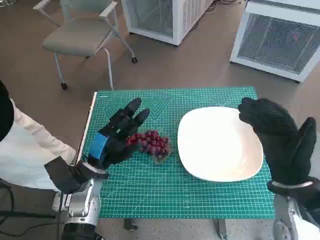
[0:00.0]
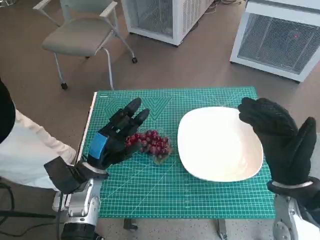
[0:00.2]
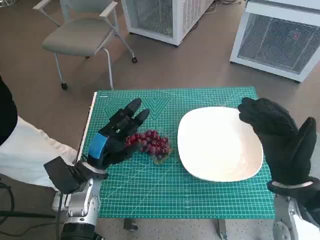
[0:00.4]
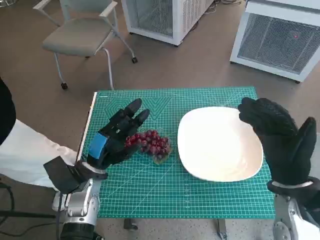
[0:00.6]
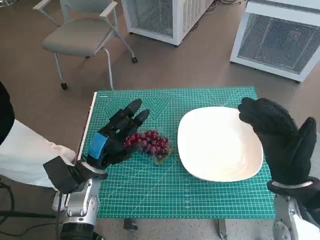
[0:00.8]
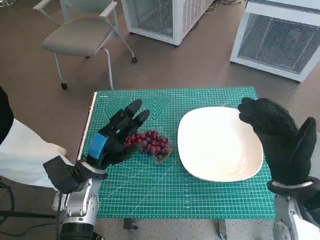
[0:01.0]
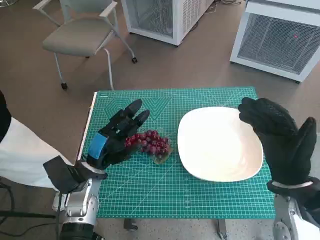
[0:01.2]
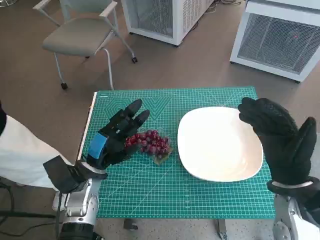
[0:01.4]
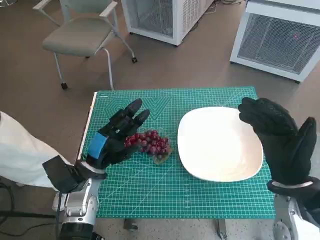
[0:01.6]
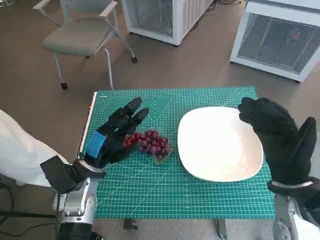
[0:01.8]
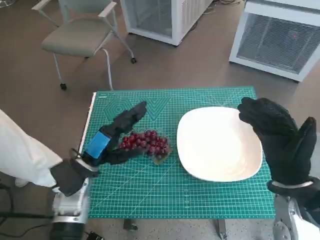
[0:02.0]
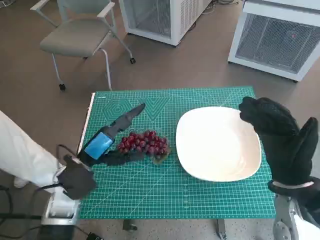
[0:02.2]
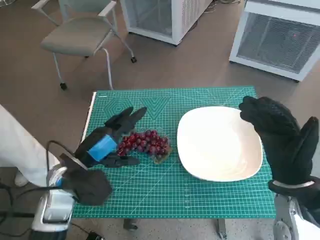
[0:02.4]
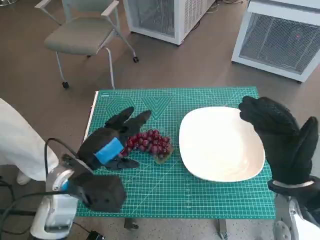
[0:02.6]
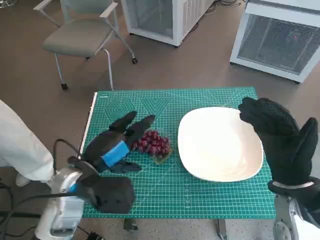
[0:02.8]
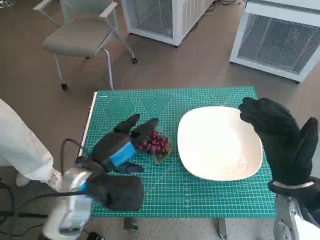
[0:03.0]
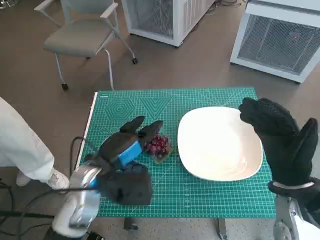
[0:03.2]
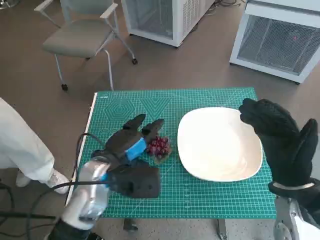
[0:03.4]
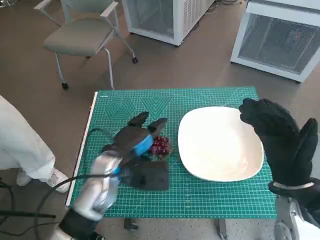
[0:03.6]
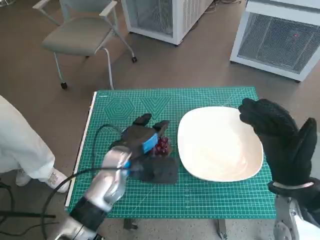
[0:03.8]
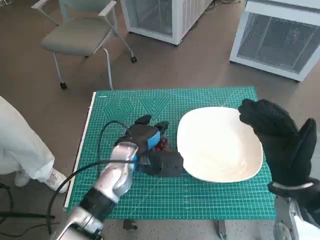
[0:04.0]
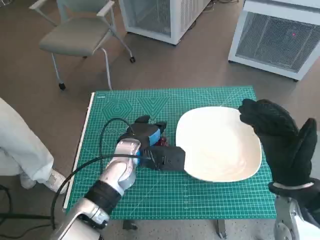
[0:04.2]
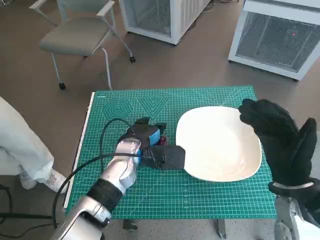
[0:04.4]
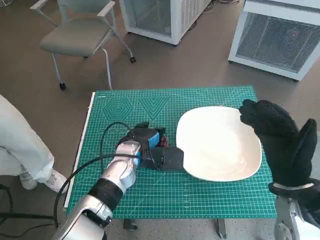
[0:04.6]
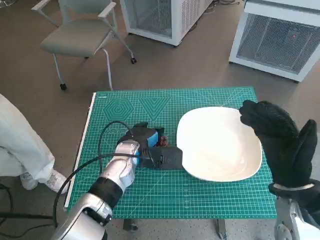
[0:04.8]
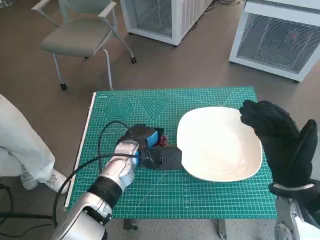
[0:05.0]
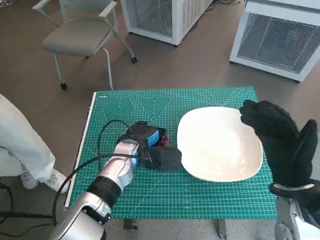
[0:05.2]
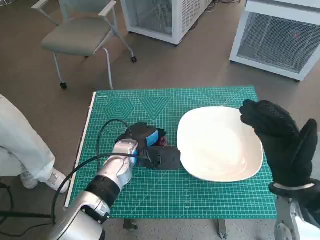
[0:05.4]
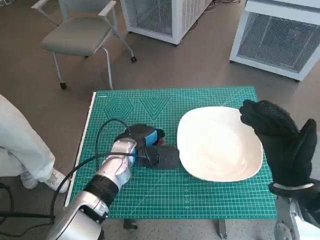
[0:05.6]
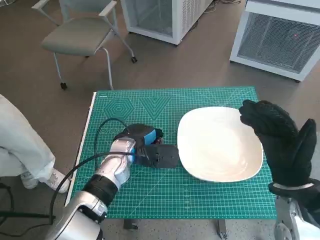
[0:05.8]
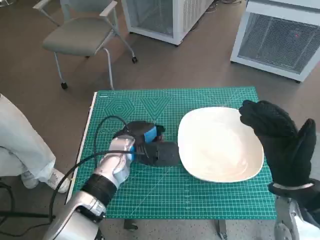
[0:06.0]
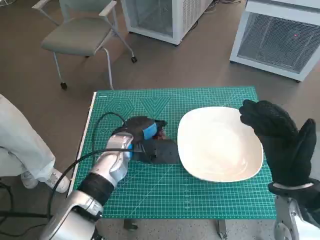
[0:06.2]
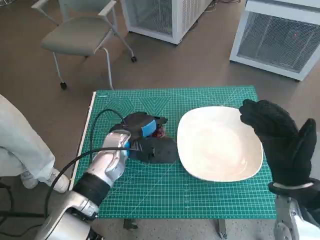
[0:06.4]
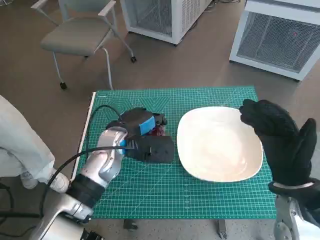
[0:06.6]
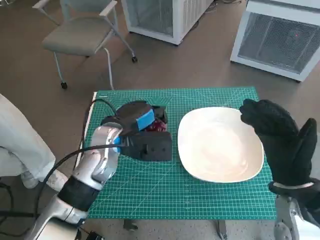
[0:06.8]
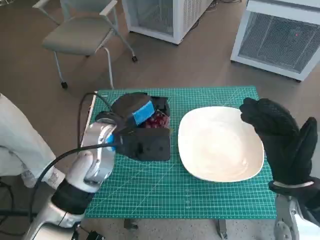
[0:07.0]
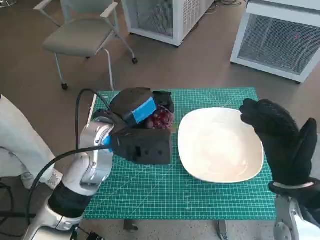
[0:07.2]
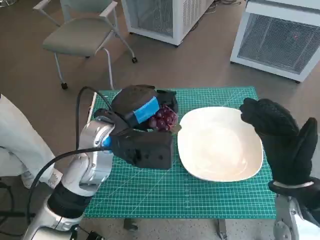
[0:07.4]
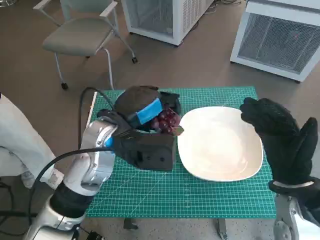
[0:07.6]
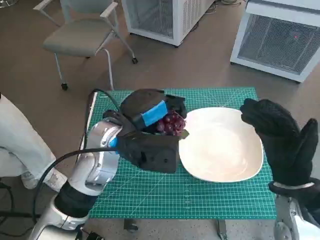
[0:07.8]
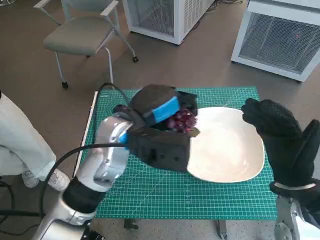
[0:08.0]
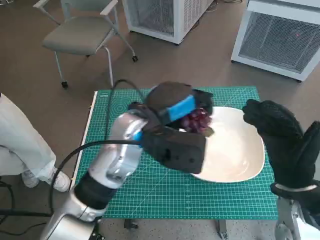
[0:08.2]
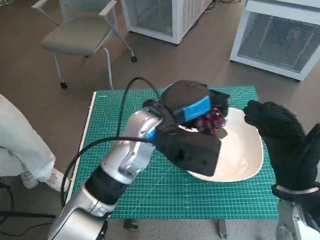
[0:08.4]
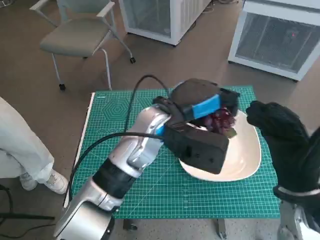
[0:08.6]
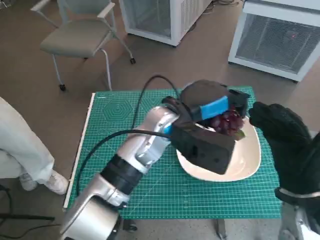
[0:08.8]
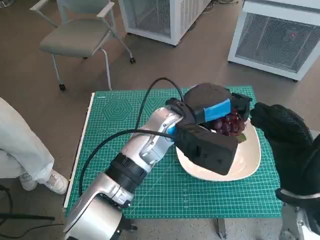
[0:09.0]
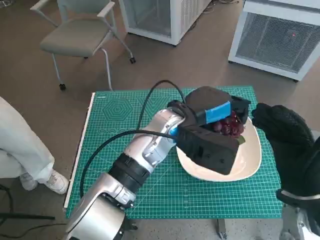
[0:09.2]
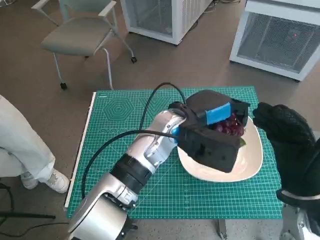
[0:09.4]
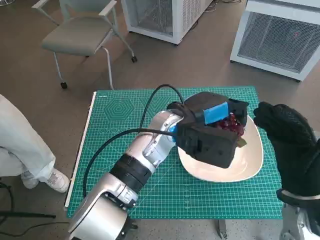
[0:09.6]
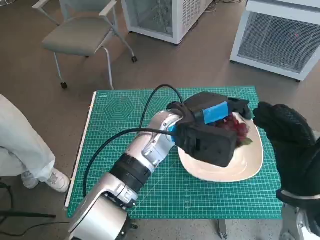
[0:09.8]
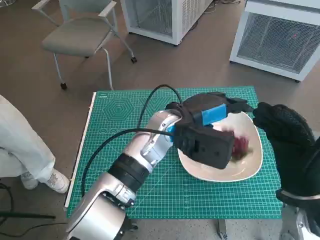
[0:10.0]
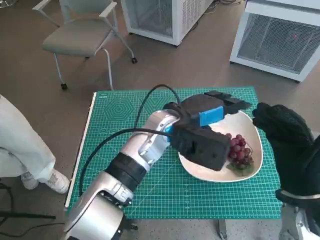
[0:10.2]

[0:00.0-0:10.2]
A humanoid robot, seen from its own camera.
Task of the whole recording: Pick up the grapes and put them on the plate.
Step, 0:00.0 to 0:05.4: Grasp the grapes with left hand.
Step, 0:05.6 to 0:10.2: Place the grapes in the plate with left hand.
0:01.4 to 0:03.0: The left hand is displaced upward by approximately 5 cm.
0:03.0 to 0:04.4: The left hand heads forward and to the right, covering approximately 10 cm.
0:04.4 to 0:05.8: The hands make only small movements.
0:05.8 to 0:07.2: The left hand travels upward by about 10 cm.
0:07.2 to 0:08.8: The left hand goes approximately 10 cm to the right.
0:08.8 to 0:10.2: The hands make only small movements.

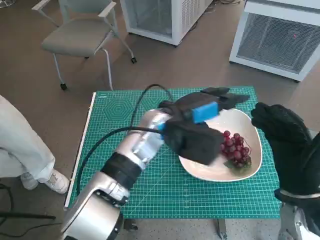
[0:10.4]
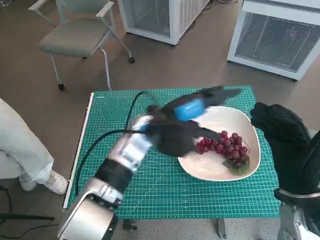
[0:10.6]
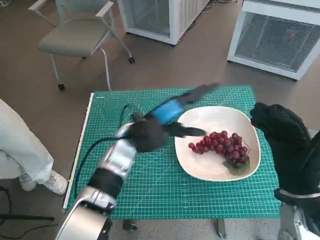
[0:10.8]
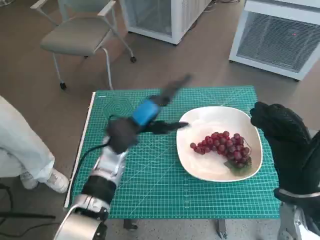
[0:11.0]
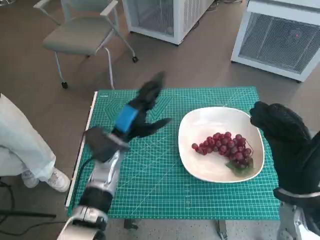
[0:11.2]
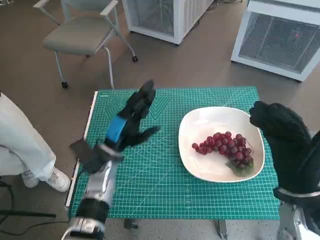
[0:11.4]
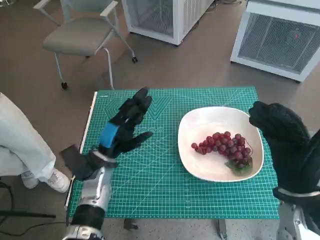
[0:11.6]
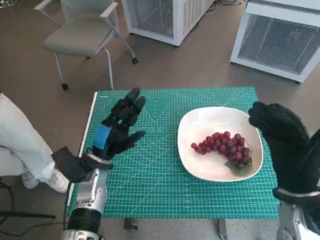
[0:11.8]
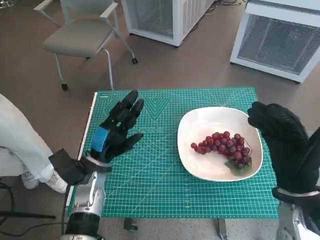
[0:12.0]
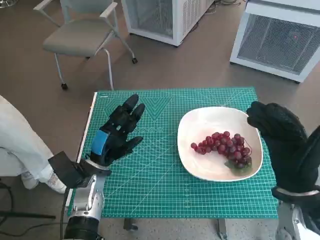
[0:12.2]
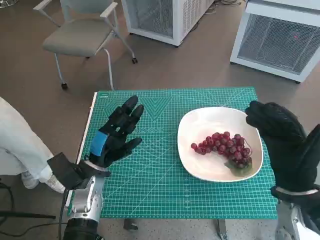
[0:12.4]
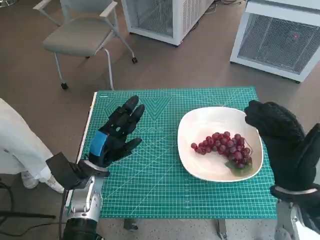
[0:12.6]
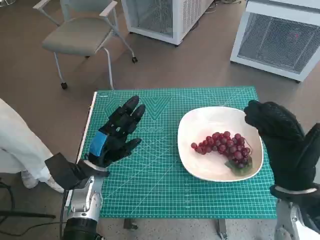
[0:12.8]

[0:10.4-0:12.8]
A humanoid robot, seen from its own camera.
Task of the whole recording: Pick up the grapes and put them on the plate.
0:10.4 to 0:11.6: The left hand goes about 20 cm to the left and downward.
0:11.6 to 0:12.8: The hands move only a little.

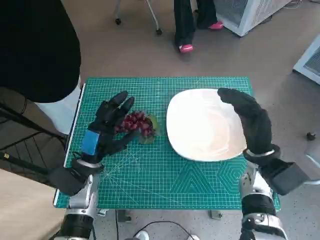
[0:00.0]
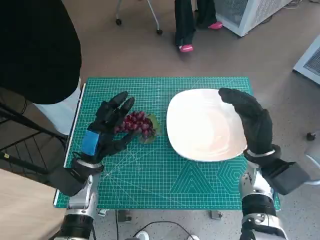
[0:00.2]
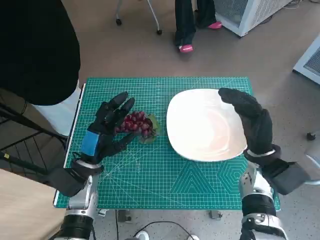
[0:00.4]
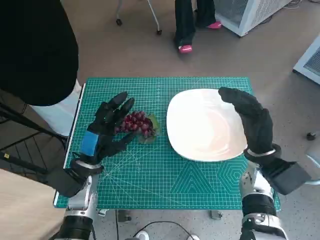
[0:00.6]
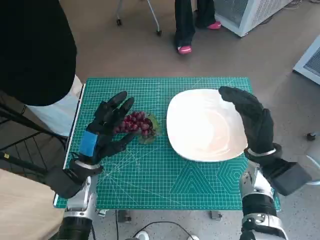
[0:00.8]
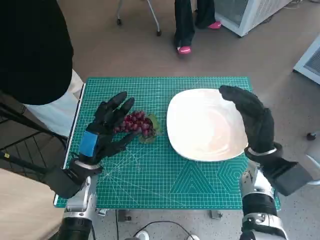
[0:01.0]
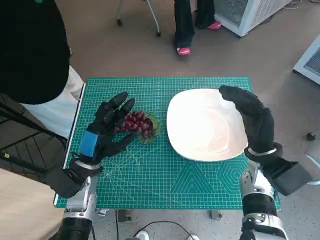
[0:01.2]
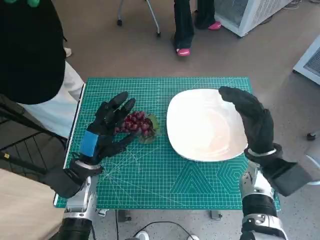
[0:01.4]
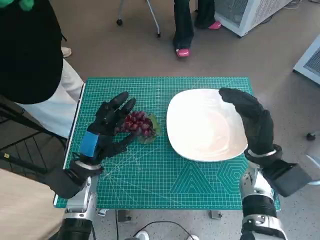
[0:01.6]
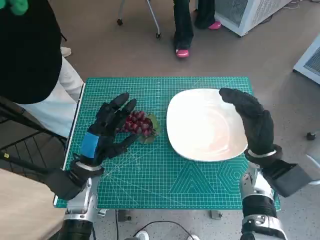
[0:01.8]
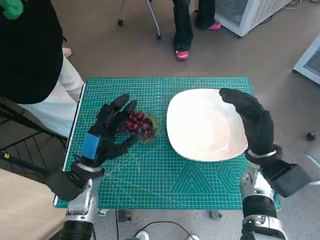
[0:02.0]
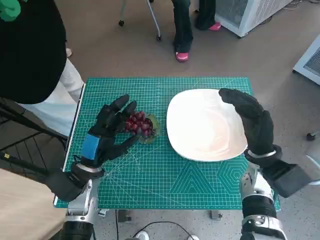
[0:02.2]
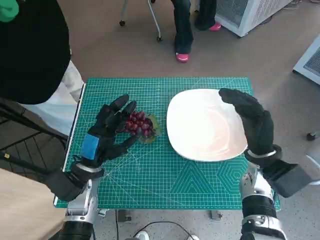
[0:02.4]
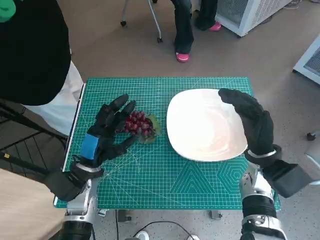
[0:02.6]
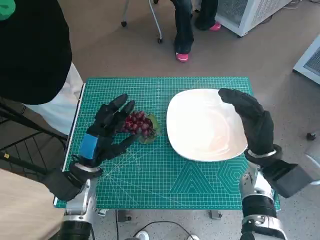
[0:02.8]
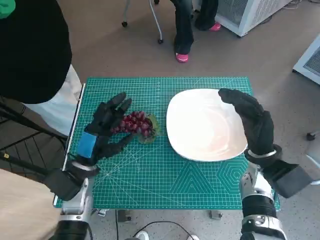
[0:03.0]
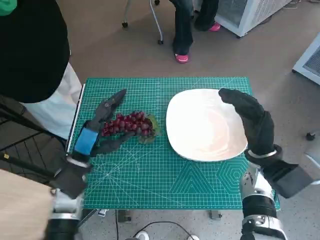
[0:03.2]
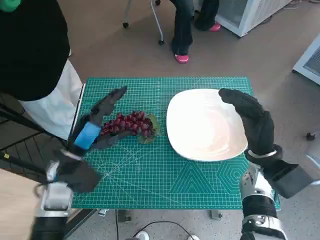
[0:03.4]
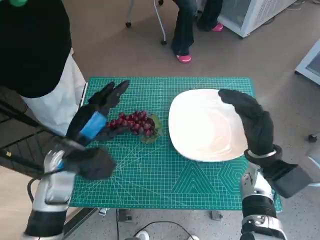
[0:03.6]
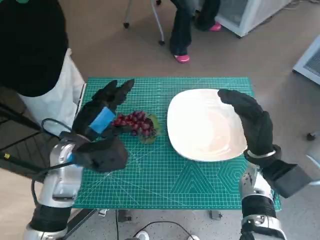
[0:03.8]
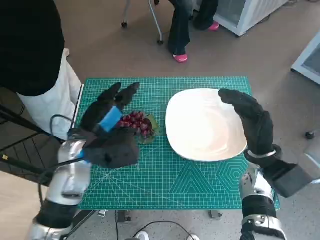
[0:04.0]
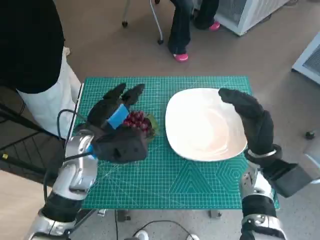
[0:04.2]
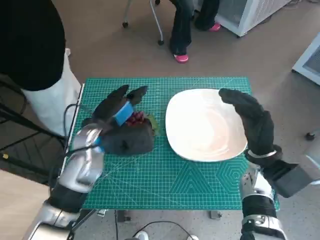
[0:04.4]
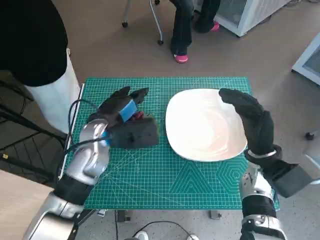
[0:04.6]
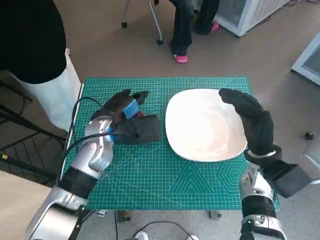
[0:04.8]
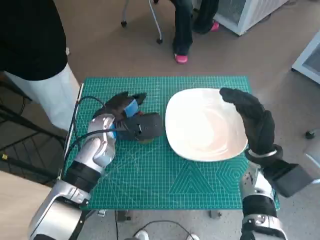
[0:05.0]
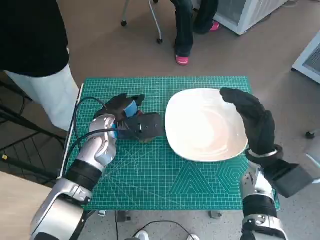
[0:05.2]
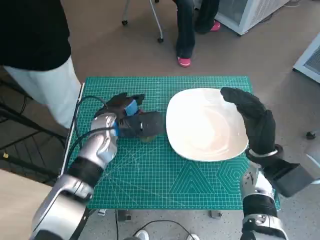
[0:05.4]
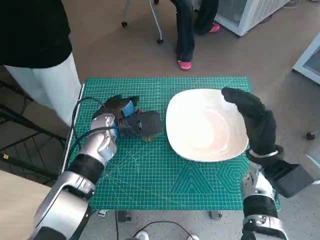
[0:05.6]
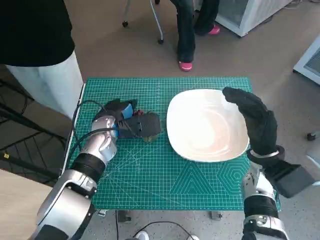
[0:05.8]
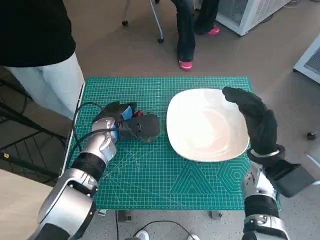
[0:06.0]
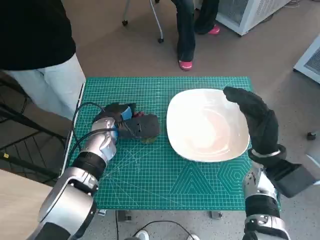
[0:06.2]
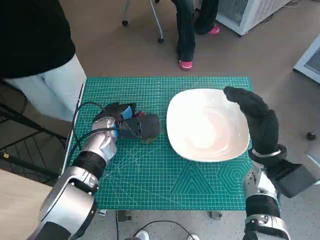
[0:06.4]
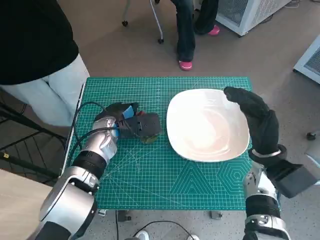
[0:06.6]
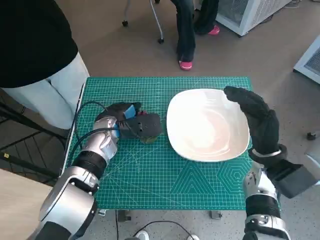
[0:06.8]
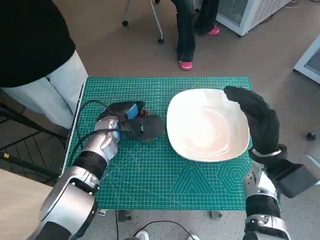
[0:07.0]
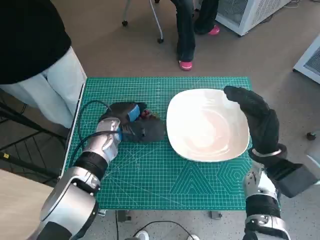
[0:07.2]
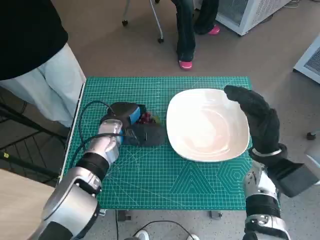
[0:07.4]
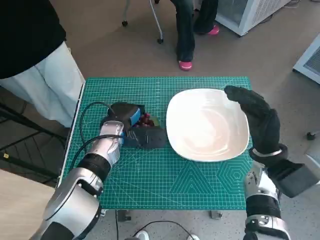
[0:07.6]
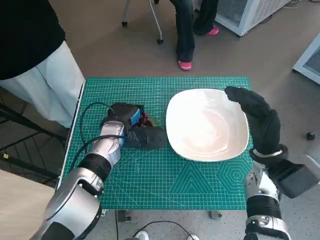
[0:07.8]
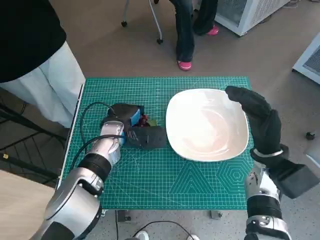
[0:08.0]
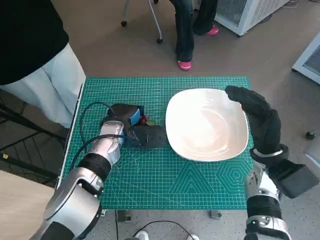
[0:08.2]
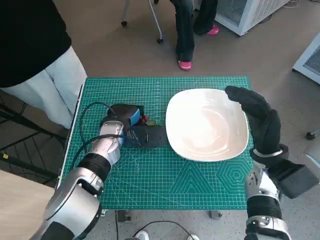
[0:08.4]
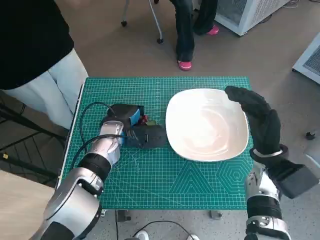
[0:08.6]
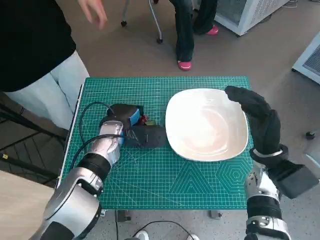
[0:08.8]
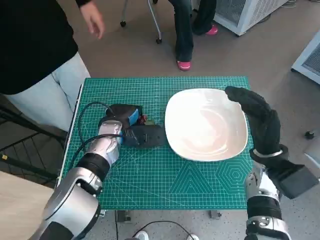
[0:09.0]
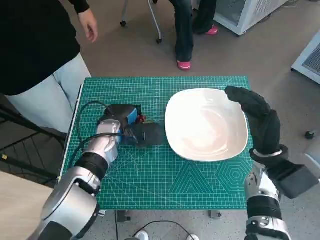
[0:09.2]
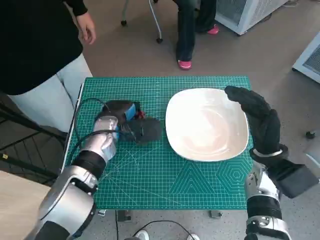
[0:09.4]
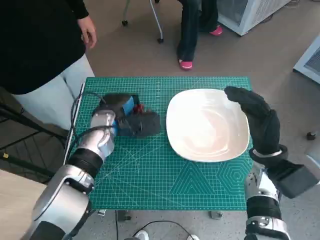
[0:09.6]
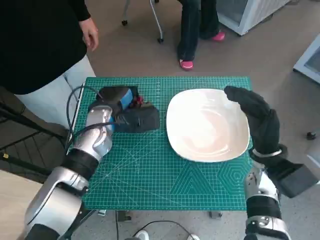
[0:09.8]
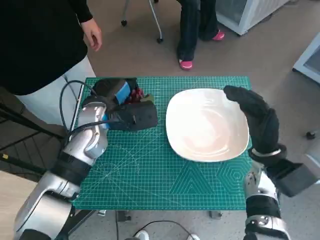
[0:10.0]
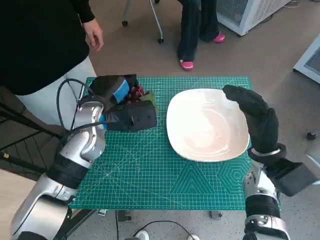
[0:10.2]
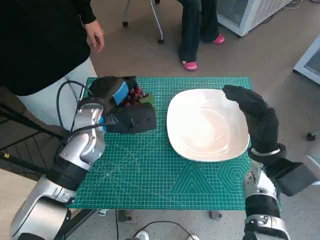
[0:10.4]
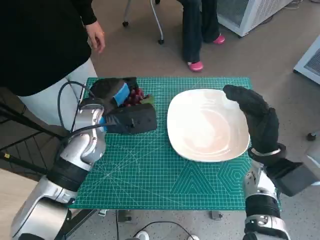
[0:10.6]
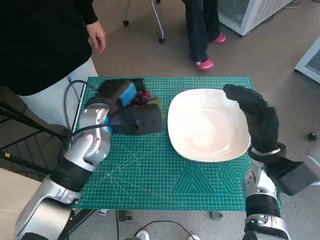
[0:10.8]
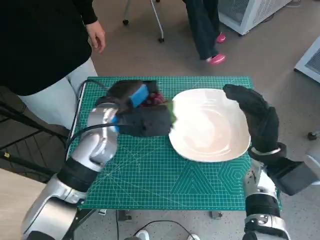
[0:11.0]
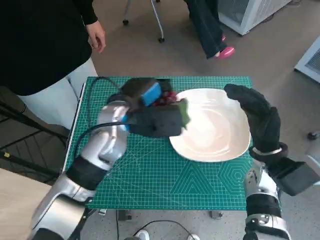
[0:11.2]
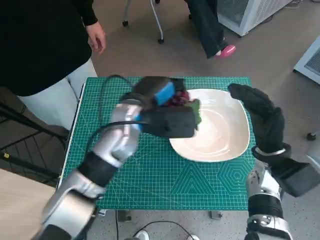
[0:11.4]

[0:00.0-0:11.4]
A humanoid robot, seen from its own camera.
Task of the whole recording: Pick up the grapes and put them on the plate.
Step, 0:00.0 to 0:07.8: Grasp the grapes with left hand.
0:01.4 to 0:02.8: Neither hand changes place.
0:02.8 to 0:04.2: The left hand is displaced upward by about 10 cm.
0:04.2 to 0:05.6: The left hand shifts approximately 5 cm forward.
0:05.6 to 0:08.6: There are only small adjustments of the hands.
0:08.6 to 0:10.0: The left hand moves upward, roughly 5 cm.
0:10.0 to 0:11.4: The left hand travels to the right by approximately 5 cm.
